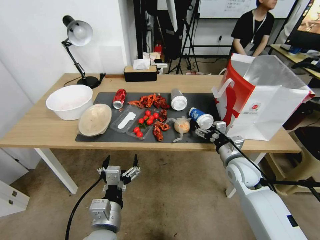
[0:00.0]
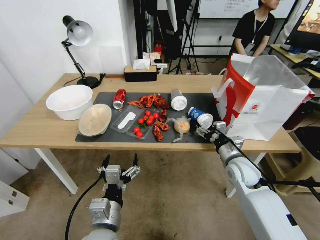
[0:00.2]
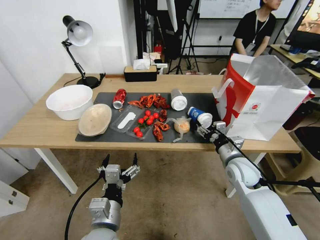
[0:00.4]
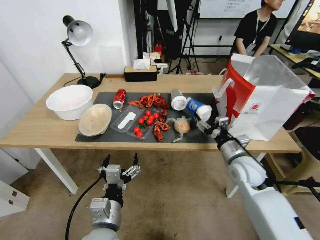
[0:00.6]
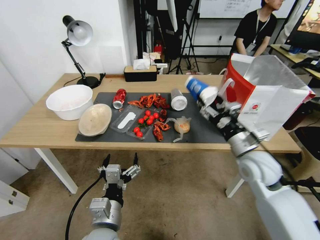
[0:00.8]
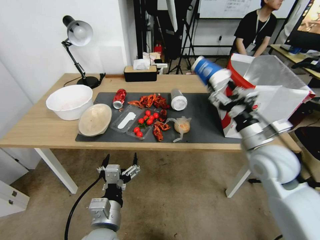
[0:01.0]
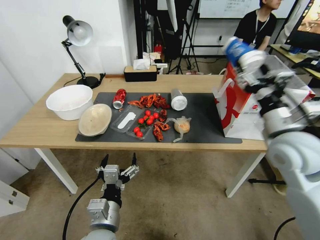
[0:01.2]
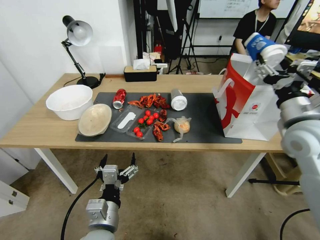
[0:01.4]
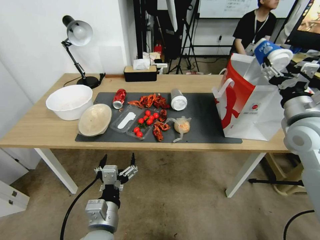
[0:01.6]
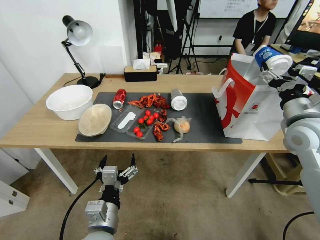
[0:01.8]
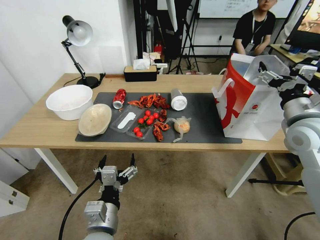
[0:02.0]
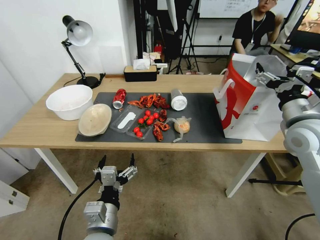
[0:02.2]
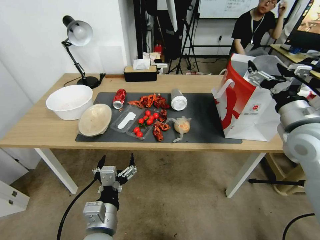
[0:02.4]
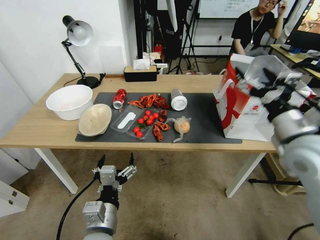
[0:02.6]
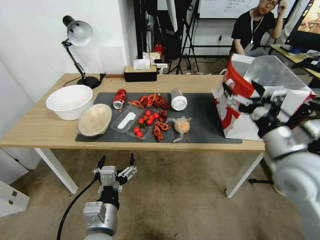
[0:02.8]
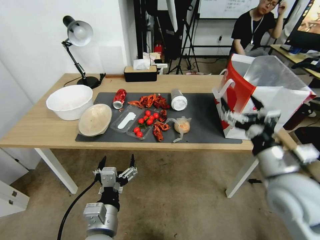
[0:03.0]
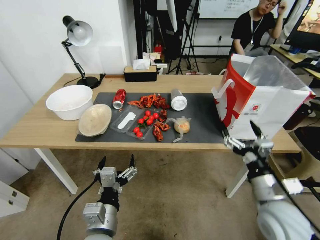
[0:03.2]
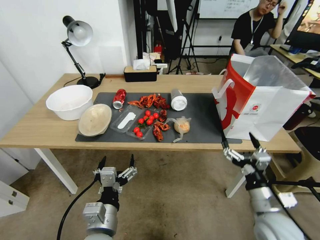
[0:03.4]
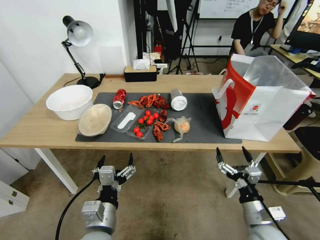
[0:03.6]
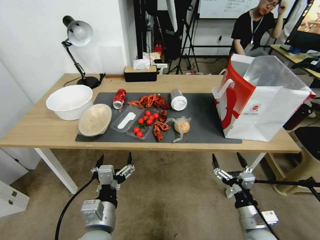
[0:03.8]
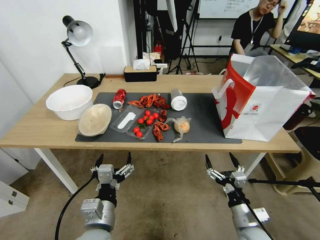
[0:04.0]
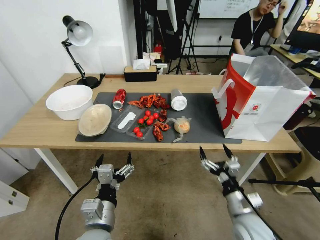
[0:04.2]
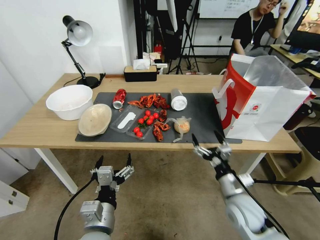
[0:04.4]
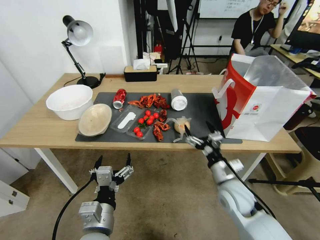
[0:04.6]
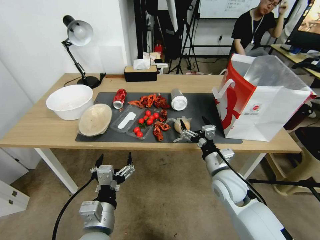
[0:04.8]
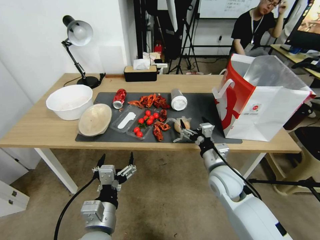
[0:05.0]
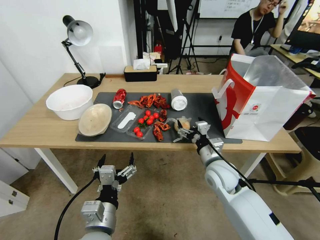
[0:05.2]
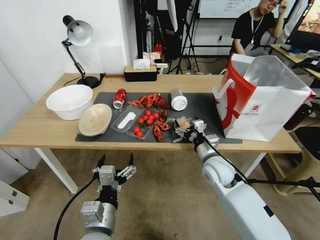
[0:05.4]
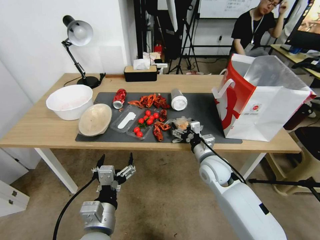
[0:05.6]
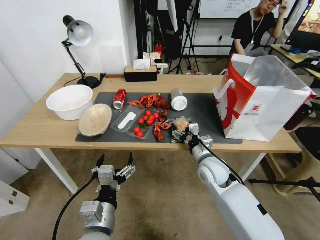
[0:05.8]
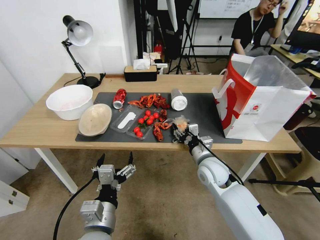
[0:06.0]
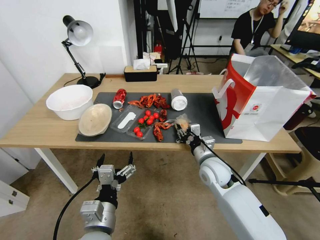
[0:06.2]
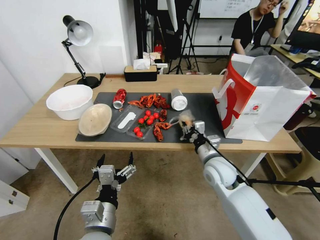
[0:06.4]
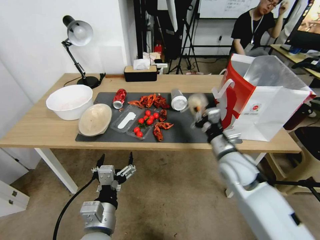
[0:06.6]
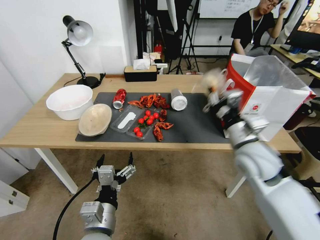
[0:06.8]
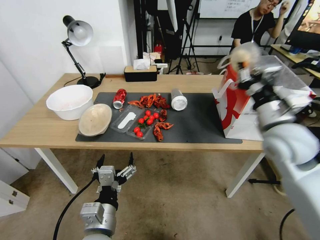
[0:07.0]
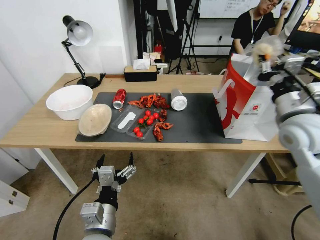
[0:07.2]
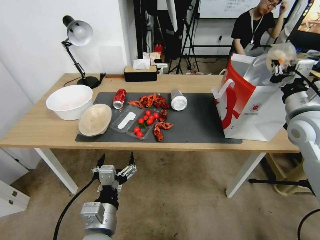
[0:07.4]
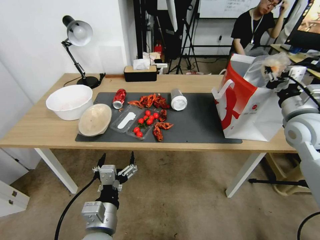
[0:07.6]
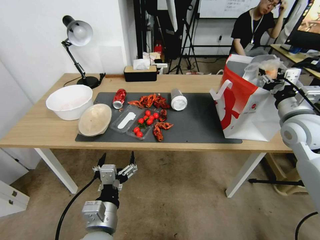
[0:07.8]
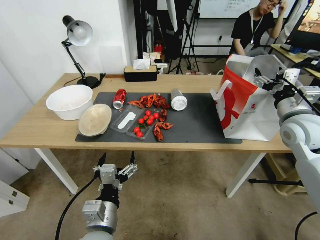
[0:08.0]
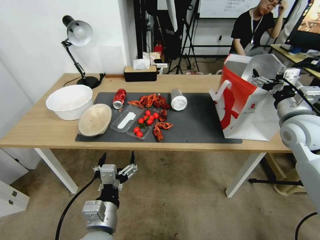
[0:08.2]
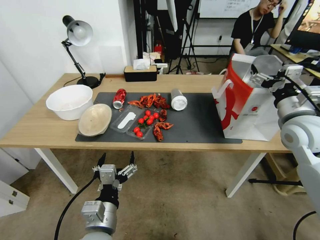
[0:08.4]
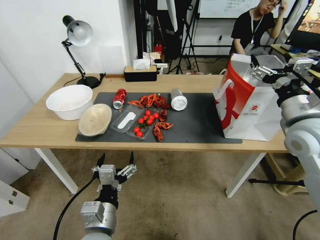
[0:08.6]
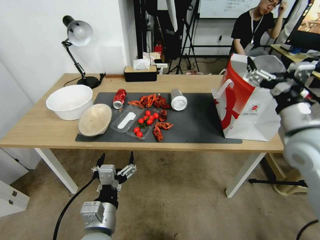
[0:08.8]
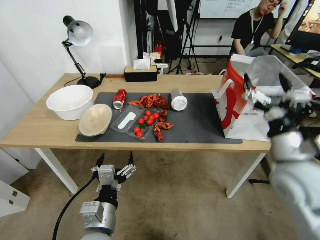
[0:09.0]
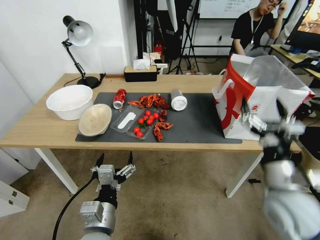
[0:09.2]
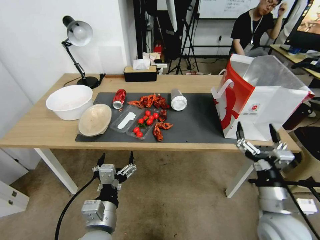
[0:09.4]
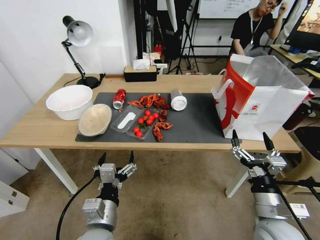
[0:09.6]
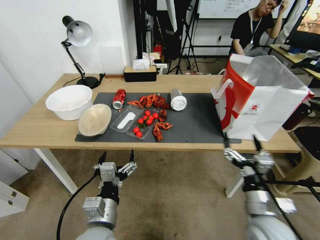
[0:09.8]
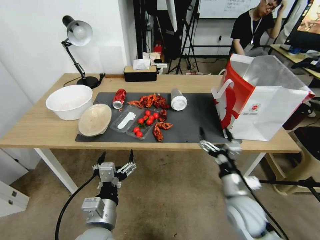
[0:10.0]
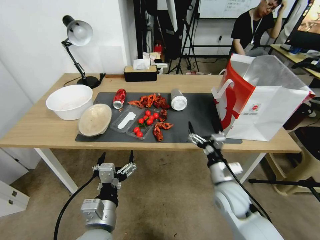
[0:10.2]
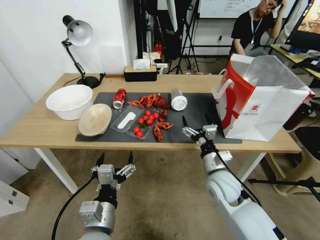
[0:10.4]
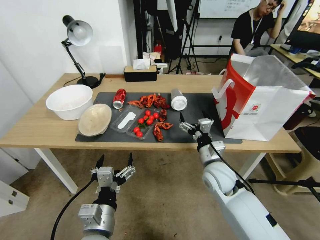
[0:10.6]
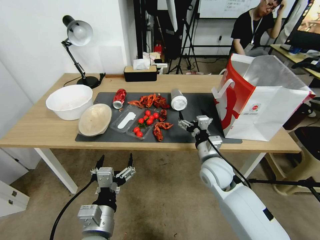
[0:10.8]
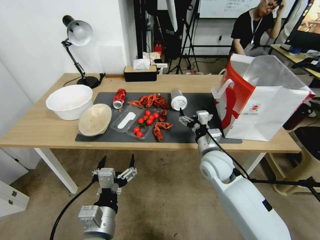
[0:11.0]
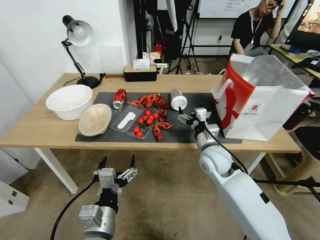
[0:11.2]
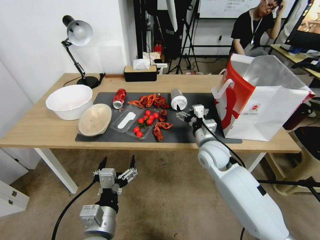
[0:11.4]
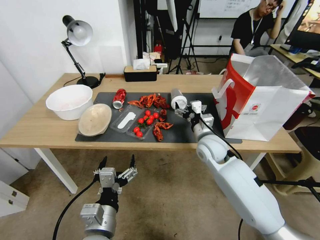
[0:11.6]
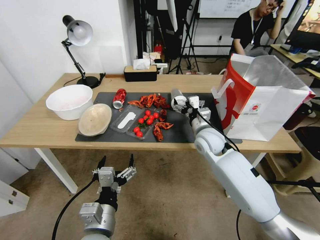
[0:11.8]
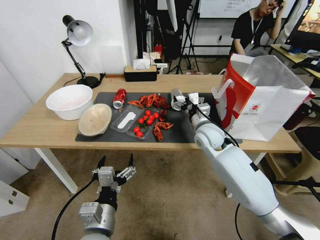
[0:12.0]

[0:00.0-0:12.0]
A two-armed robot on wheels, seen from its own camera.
0:00.0 to 0:01.6: The right gripper travels upward and to the right by roughly 20 cm, and closes.
0:01.6 to 0:03.0: The right gripper heads backward, to the left and downward, covering approximately 15 cm, and opens its fingers.
0:03.0 to 0:04.4: The right gripper moves downward, roughly 15 cm.
0:04.4 to 0:06.0: The right gripper travels forward and to the left by roughly 15 cm, and closes up.
0:06.0 to 0:07.6: The right gripper moves to the right and upward, some 30 cm, and closes its fingers.
0:07.6 to 0:09.0: The right gripper goes about 10 cm backward and to the left, and opens up.
0:09.0 to 0:10.4: The right gripper heads downward and to the left, covering roughly 25 cm.
0:10.4 to 0:12.0: The right gripper moves forward and upward, roughly 15 cm.

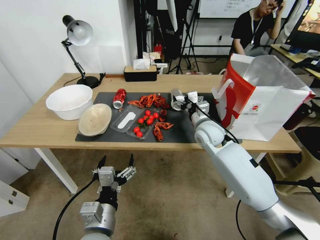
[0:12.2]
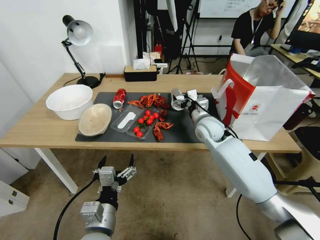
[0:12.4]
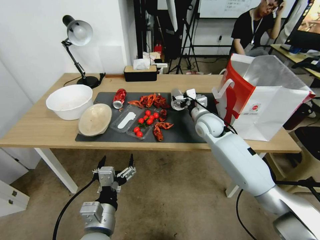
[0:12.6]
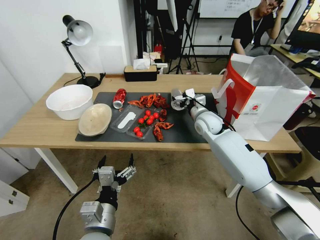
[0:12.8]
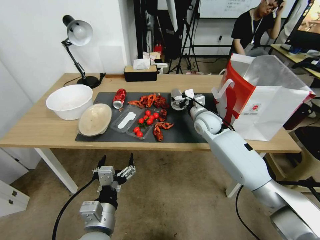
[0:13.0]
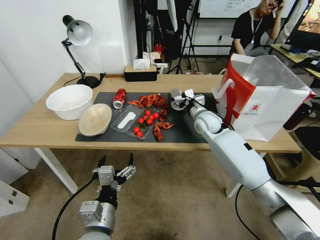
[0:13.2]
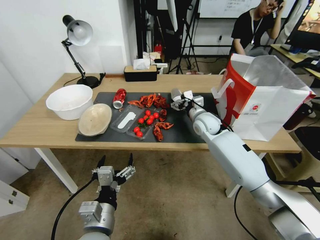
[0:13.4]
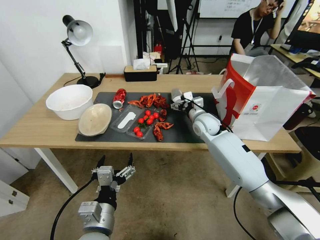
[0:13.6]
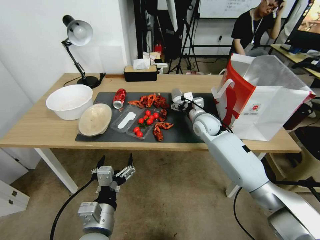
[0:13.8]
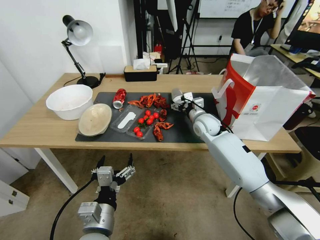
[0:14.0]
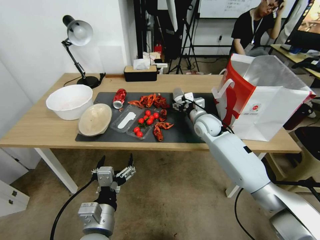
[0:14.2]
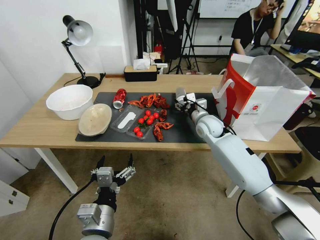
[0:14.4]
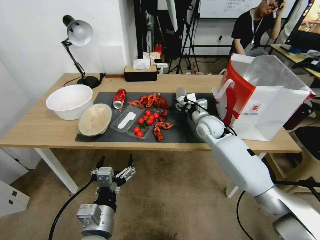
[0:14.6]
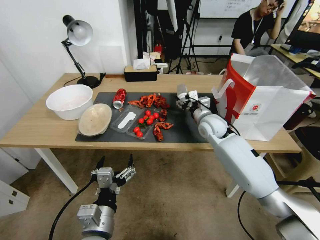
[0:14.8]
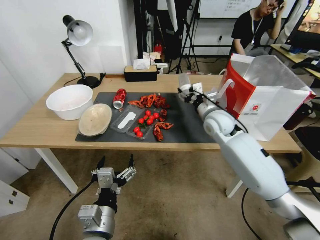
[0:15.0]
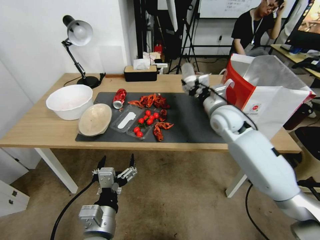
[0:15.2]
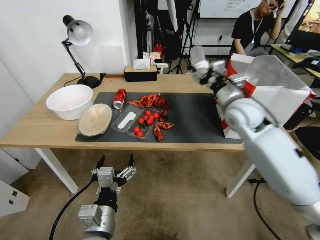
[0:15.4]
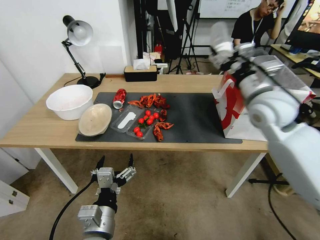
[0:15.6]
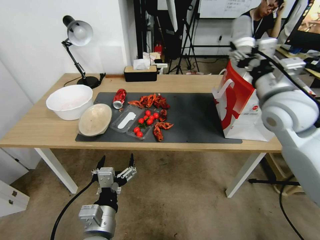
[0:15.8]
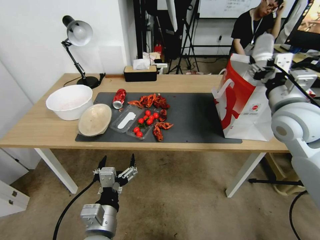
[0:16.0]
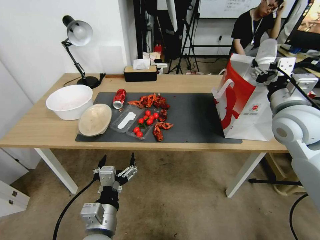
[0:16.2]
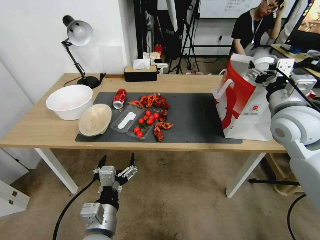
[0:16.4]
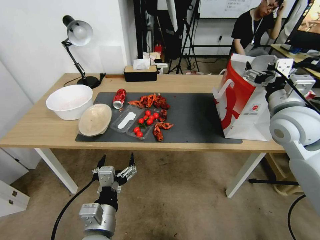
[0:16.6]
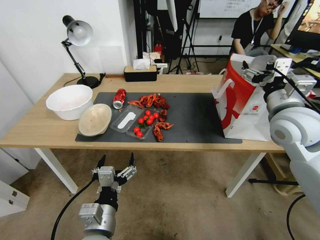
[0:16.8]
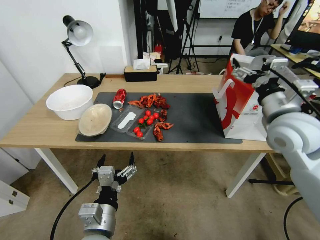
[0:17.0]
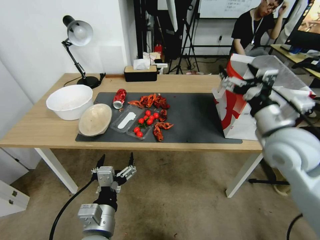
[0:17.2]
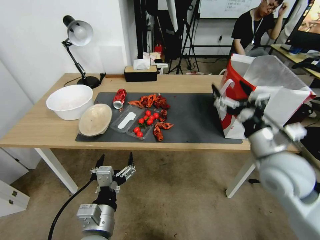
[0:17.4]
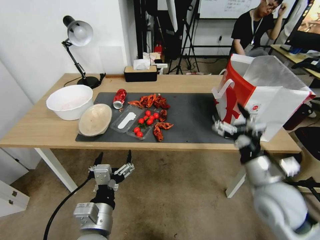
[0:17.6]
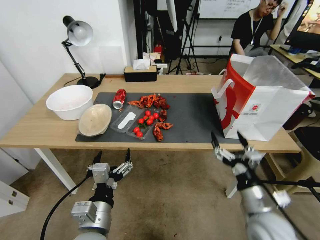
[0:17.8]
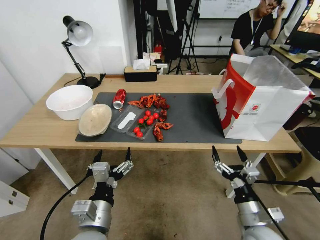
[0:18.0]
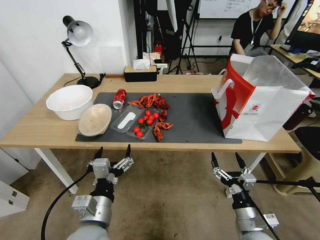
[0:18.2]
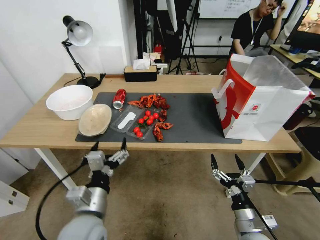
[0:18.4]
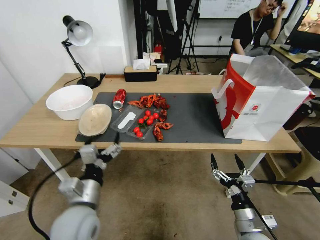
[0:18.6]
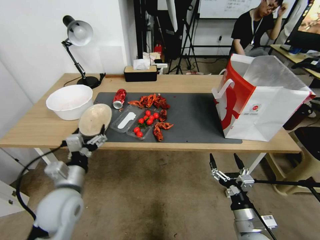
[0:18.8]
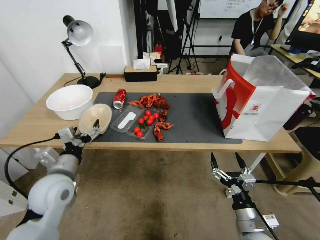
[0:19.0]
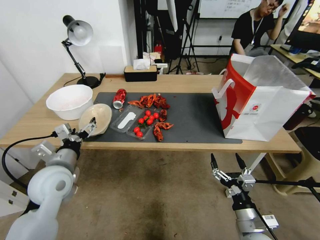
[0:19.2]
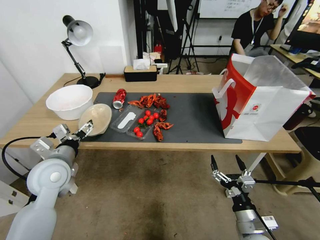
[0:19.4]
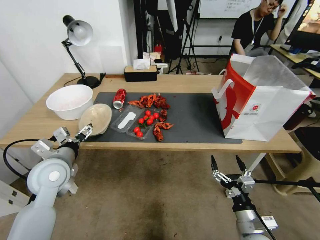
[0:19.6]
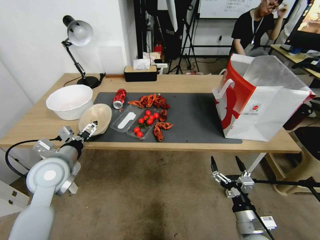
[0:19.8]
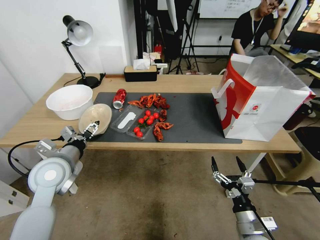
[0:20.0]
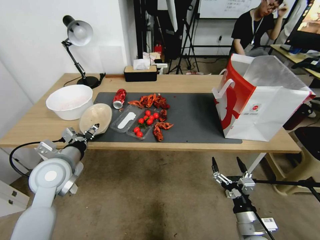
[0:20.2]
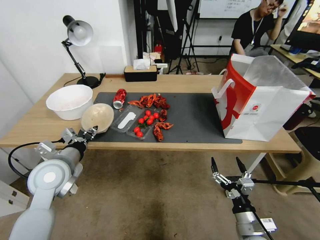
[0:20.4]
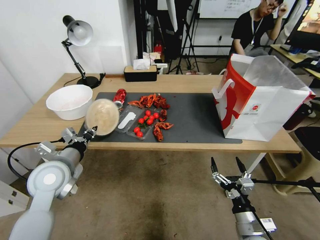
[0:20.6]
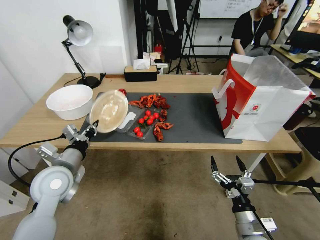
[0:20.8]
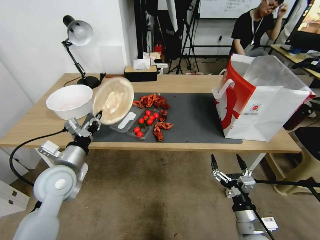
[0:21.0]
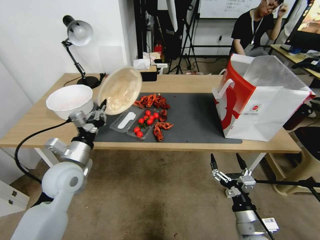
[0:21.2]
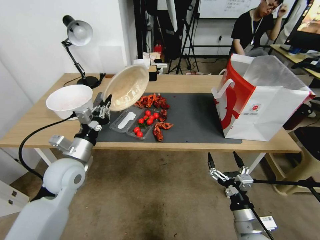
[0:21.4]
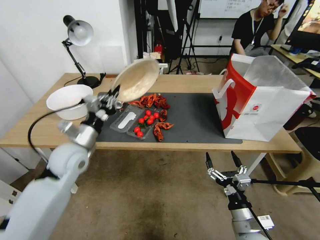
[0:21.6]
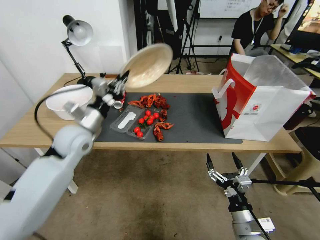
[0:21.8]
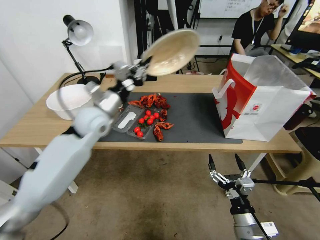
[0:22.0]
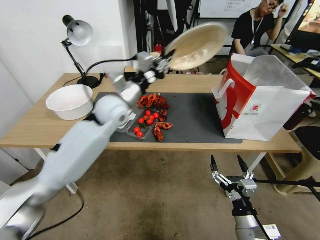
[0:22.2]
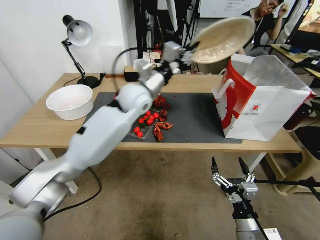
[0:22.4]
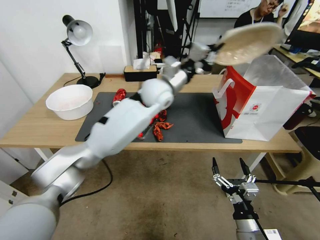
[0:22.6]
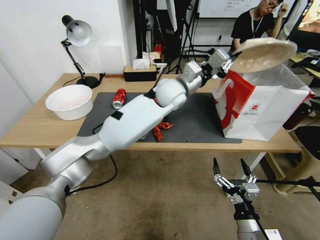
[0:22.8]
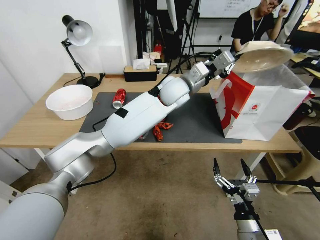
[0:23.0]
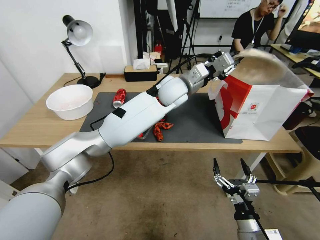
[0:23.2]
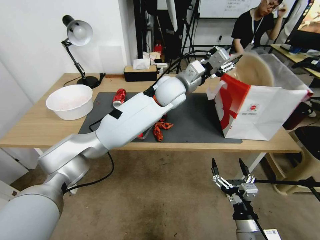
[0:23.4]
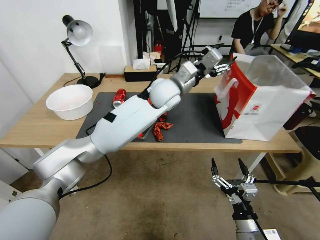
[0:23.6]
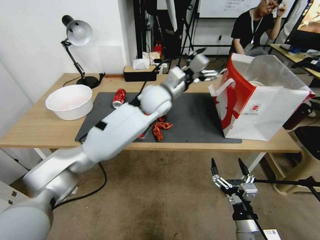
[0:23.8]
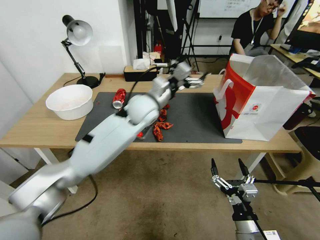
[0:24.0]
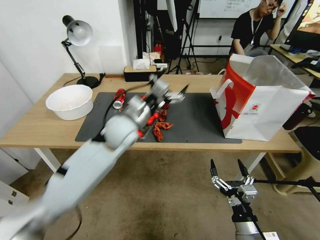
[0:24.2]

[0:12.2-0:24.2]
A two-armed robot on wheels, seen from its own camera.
0:12.2 to 0:13.8: The right gripper heads forward, covering about 5 cm.
0:13.8 to 0:15.2: The right gripper shifts about 10 cm upward and backward, and closes.
0:15.2 to 0:16.6: The right gripper heads to the right, backward and upward, covering some 15 cm, and opens up.
0:16.6 to 0:18.2: The right gripper travels downward and backward by some 35 cm.
0:18.2 to 0:19.8: The left gripper shifts roughly 20 cm forward and to the left.
0:19.8 to 0:21.2: The left gripper closes its fingers.
0:21.2 to 0:22.6: The left gripper travels to the right, forward and upward by about 35 cm.
0:22.6 to 0:24.2: The left gripper goes about 15 cm to the left, backward and downward, and opens.
